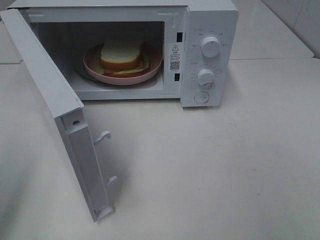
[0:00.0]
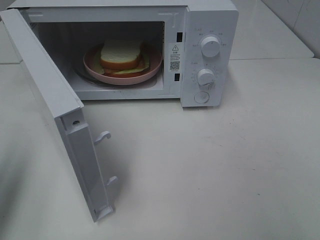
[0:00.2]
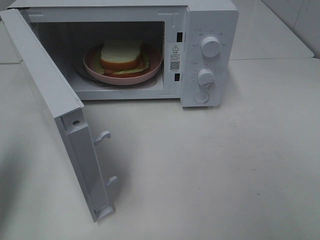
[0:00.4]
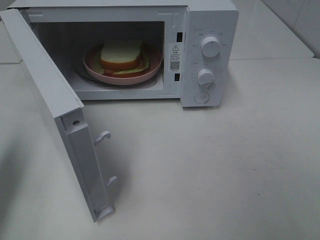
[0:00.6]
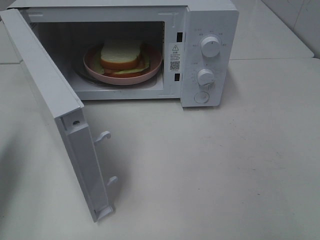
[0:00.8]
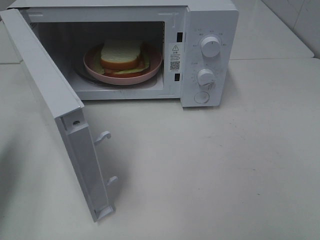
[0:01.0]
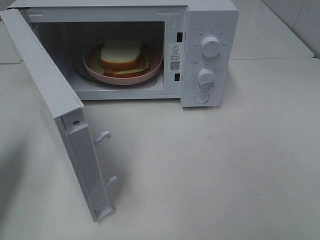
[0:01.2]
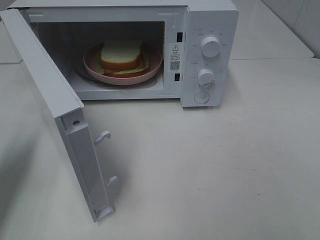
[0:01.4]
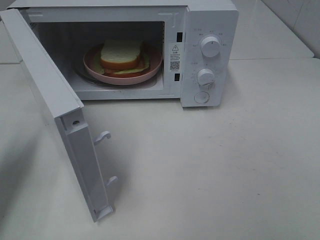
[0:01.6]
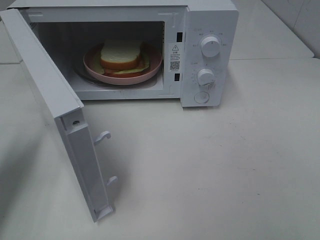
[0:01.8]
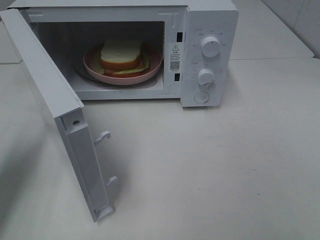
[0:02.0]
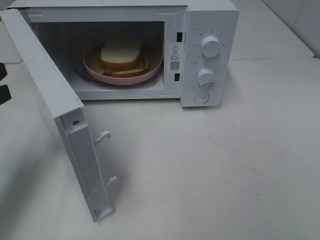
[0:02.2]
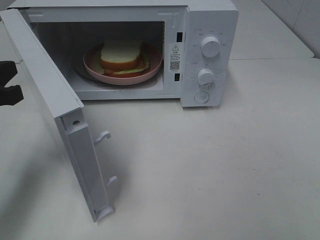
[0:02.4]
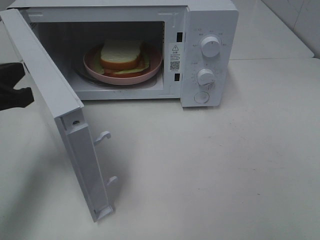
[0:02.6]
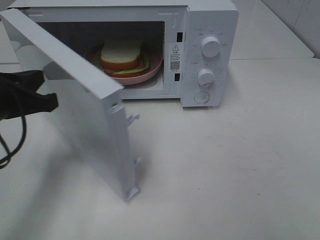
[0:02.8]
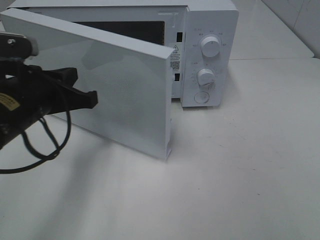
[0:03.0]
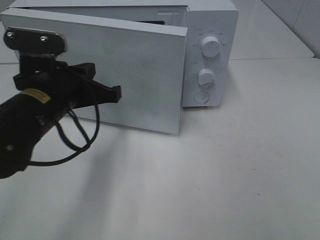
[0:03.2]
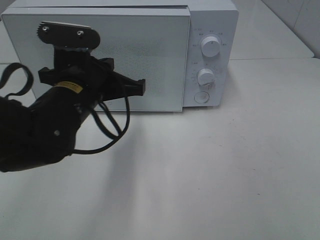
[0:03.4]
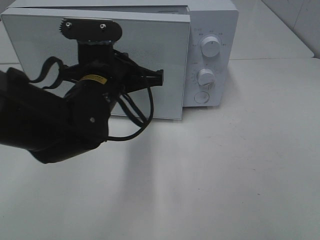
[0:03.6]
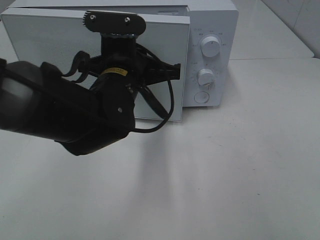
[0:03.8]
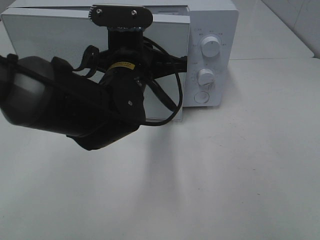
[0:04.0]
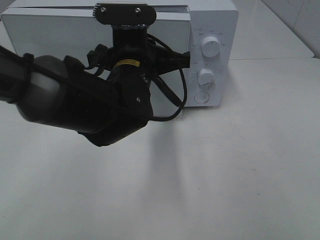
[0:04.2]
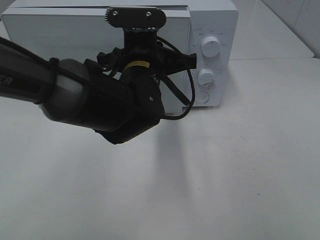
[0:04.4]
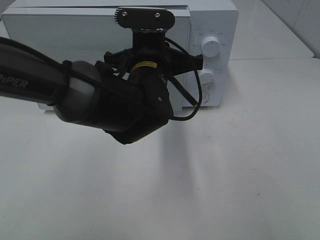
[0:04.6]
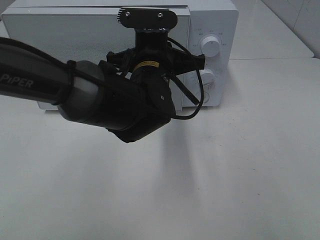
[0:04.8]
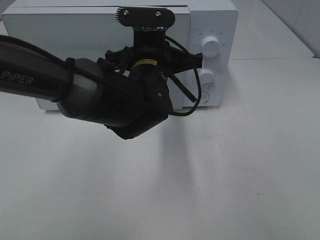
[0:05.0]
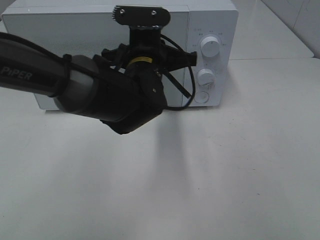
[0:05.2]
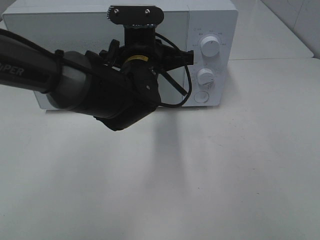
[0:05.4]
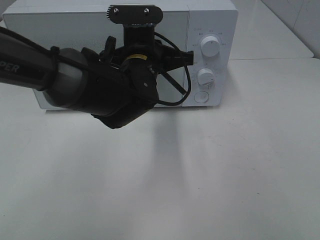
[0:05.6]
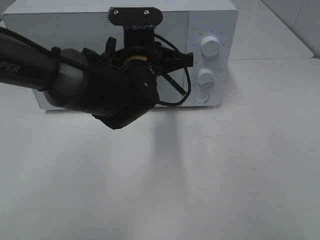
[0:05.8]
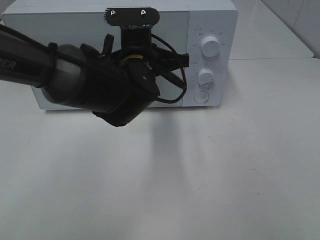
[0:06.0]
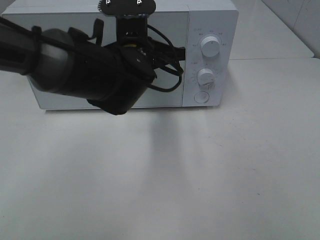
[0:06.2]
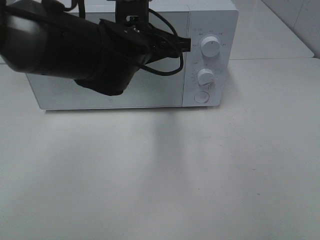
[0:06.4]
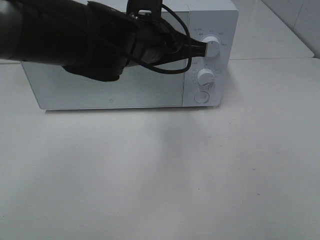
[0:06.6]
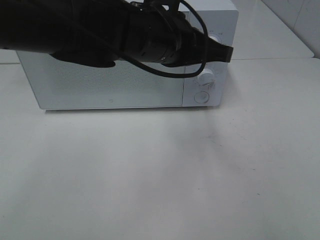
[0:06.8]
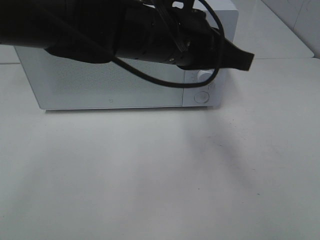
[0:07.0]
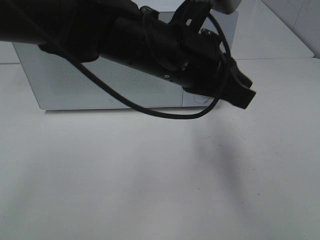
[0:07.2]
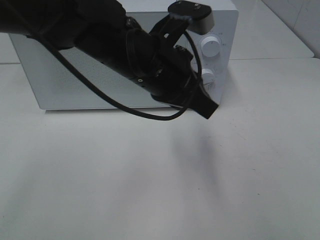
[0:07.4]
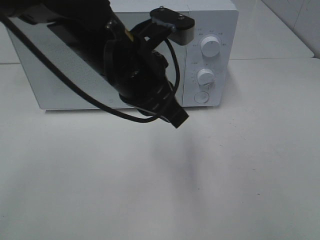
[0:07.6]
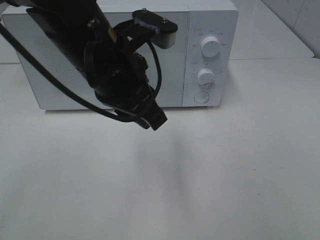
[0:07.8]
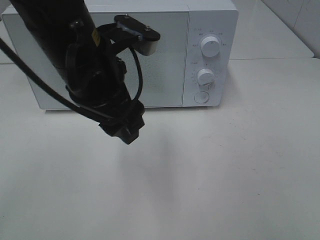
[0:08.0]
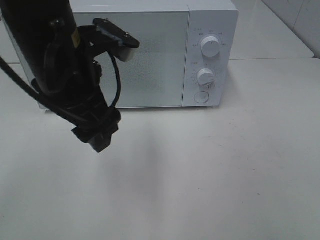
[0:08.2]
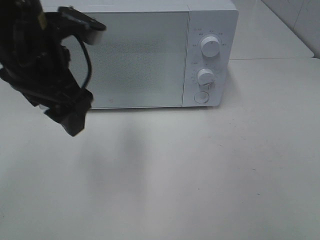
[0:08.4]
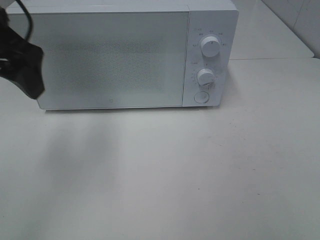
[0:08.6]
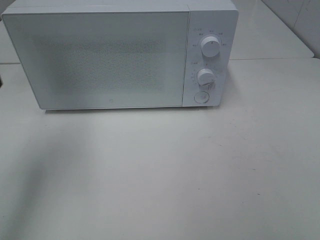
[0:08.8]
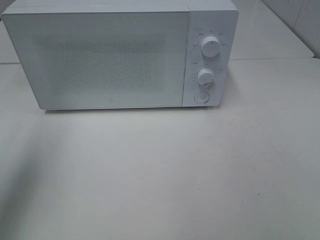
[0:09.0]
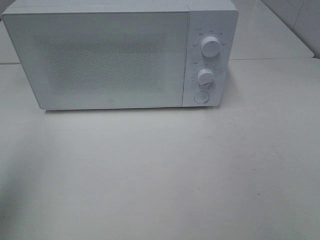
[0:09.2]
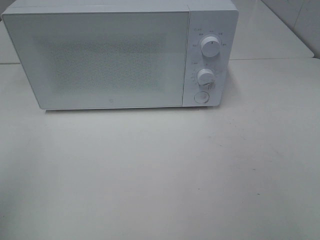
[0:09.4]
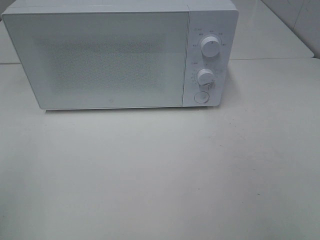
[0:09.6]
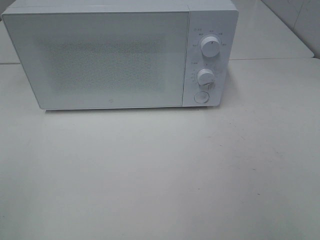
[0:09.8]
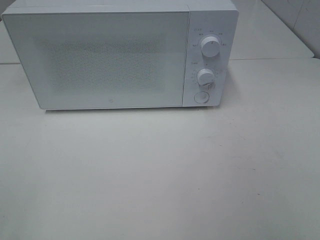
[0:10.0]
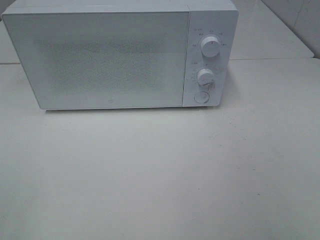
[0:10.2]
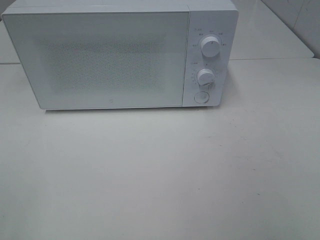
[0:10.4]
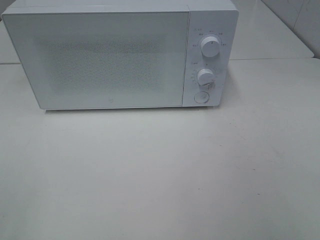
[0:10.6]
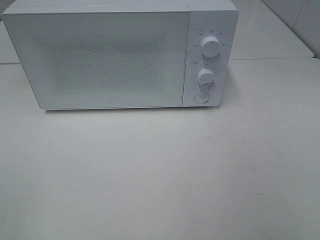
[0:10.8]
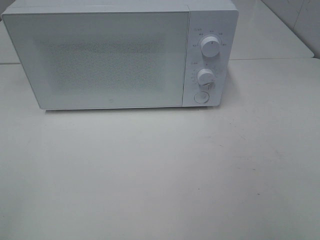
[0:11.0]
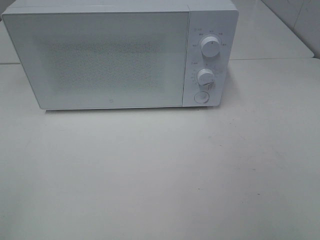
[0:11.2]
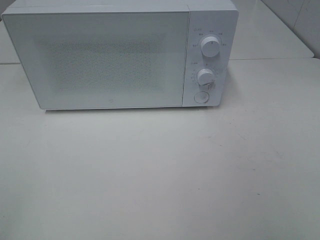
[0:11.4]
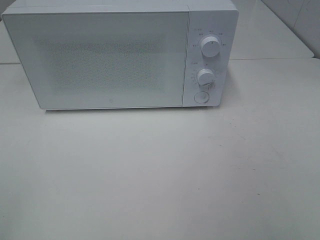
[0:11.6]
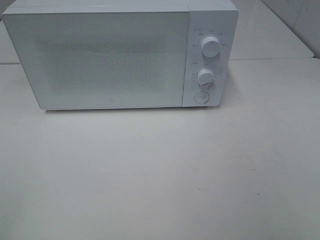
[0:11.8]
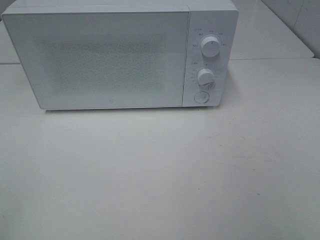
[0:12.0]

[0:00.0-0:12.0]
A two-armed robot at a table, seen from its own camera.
Task of the whole recording: Heat Sandwich.
Step, 0:00.0 to 0:06.6: Left hand: close the microwave door.
0:00.0 to 0:01.6: The left gripper is displaced forward and downward by roughly 15 cm, and closes.
0:01.6 to 0:03.0: The left gripper goes about 15 cm to the right.
0:03.0 to 0:04.4: The left gripper travels to the right by some 15 cm.
0:04.4 to 0:06.0: The grippers stay close to where they were, moving slightly.
0:06.0 to 0:07.6: The left gripper shifts about 10 cm backward and upward.
0:07.6 to 0:09.0: The left gripper heads to the left, covering about 25 cm, and opens up.
0:09.0 to 0:10.4: The left gripper shifts approximately 20 cm backward.

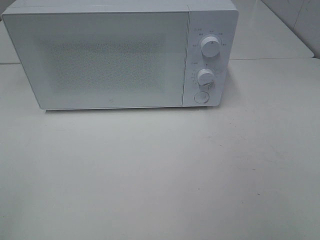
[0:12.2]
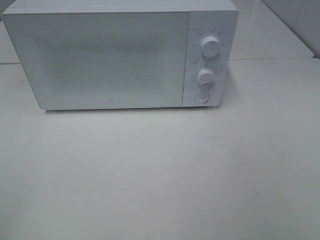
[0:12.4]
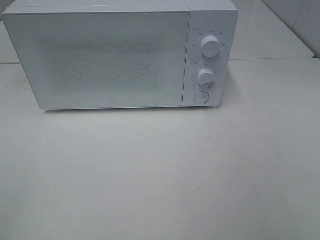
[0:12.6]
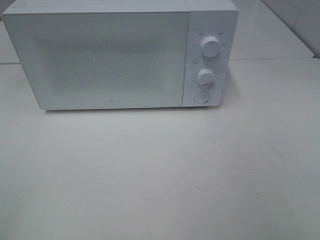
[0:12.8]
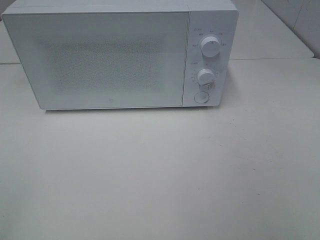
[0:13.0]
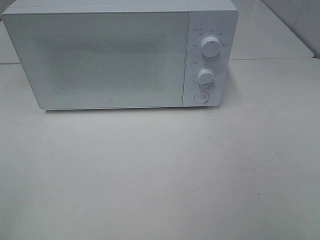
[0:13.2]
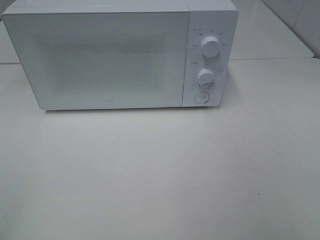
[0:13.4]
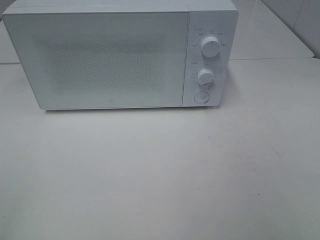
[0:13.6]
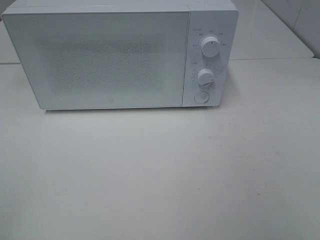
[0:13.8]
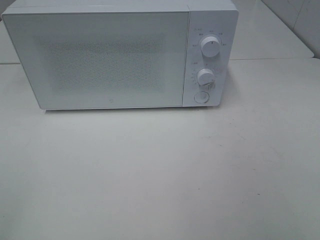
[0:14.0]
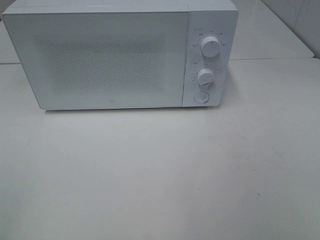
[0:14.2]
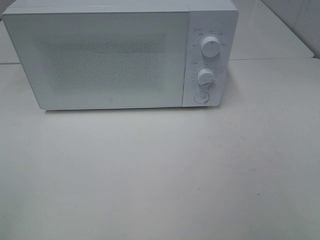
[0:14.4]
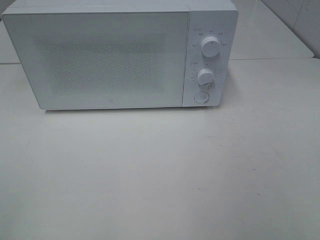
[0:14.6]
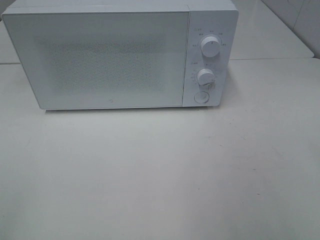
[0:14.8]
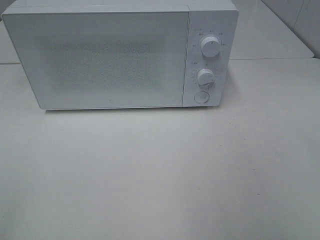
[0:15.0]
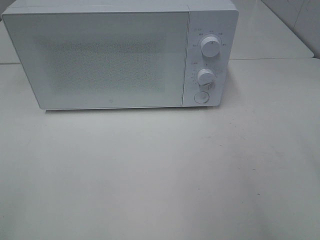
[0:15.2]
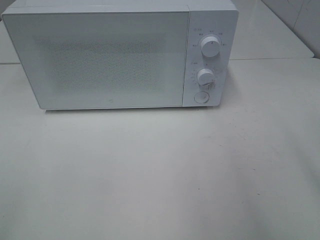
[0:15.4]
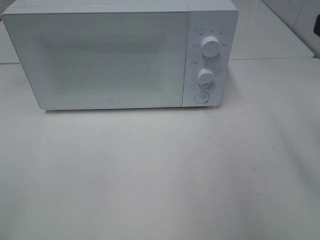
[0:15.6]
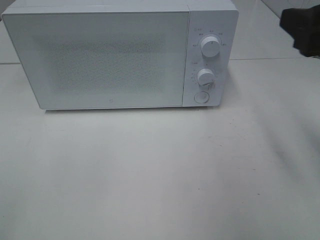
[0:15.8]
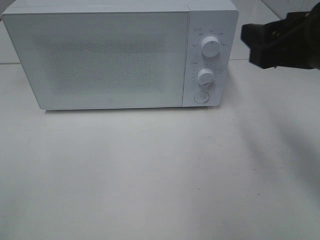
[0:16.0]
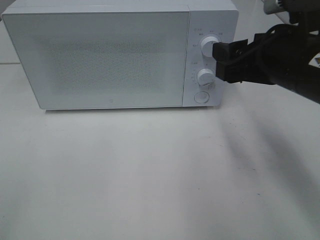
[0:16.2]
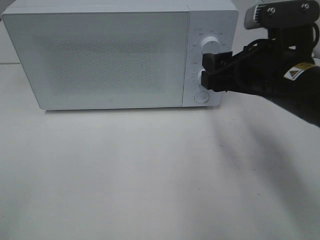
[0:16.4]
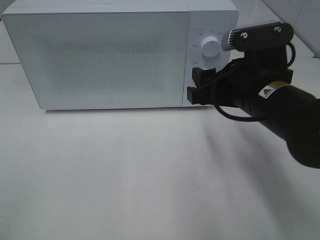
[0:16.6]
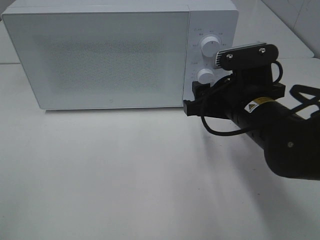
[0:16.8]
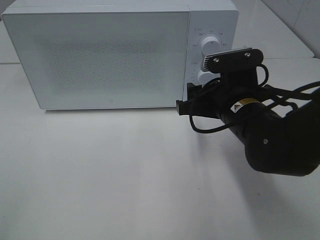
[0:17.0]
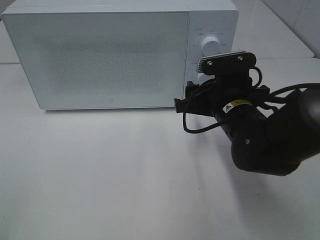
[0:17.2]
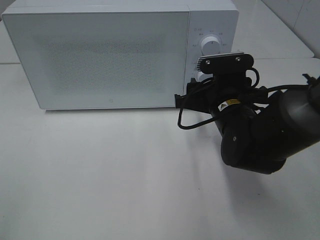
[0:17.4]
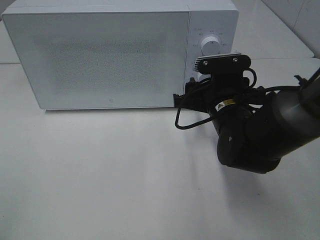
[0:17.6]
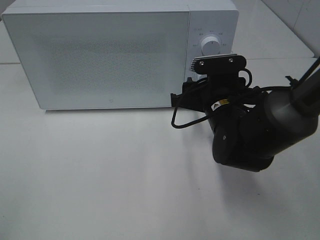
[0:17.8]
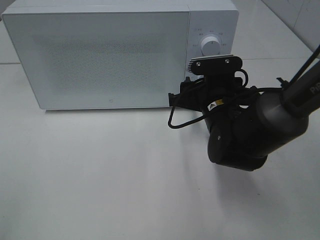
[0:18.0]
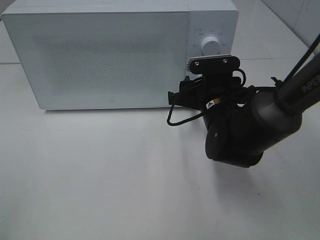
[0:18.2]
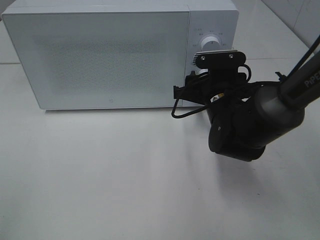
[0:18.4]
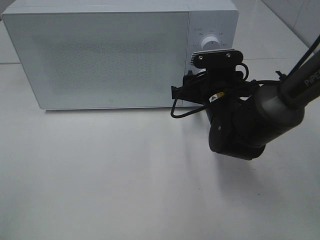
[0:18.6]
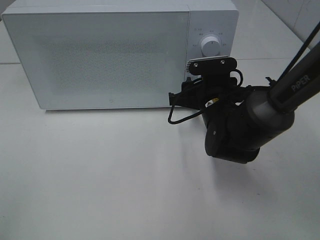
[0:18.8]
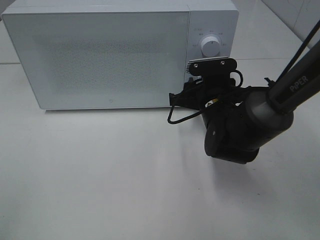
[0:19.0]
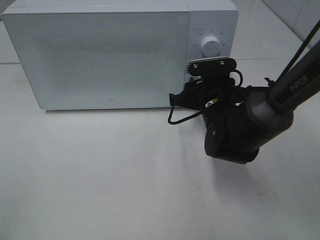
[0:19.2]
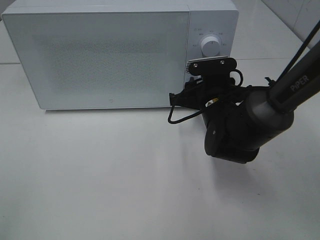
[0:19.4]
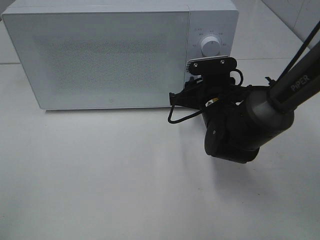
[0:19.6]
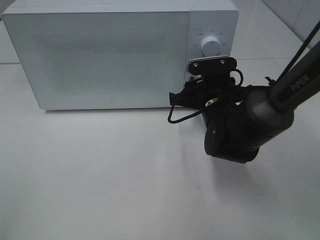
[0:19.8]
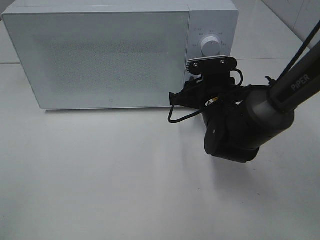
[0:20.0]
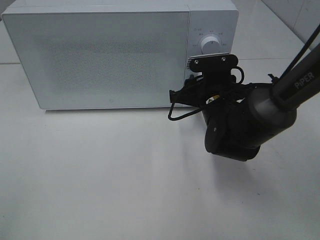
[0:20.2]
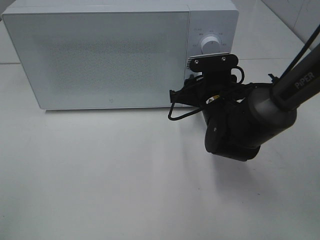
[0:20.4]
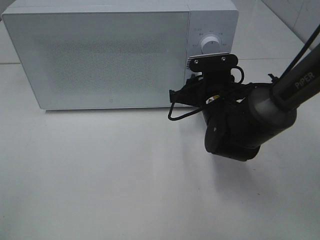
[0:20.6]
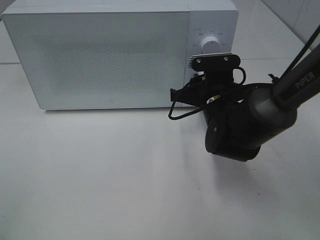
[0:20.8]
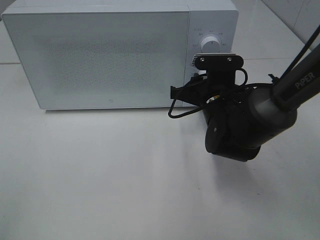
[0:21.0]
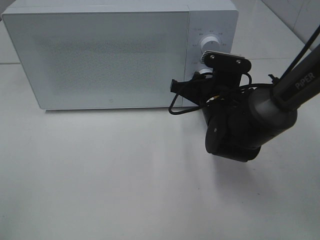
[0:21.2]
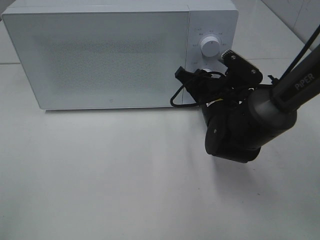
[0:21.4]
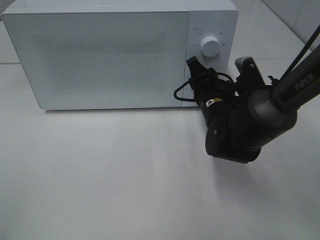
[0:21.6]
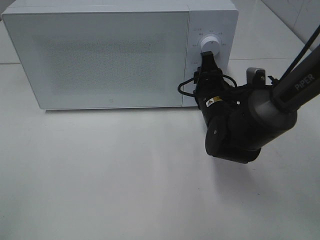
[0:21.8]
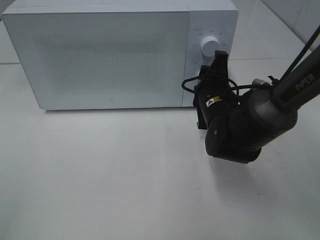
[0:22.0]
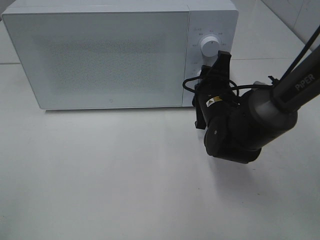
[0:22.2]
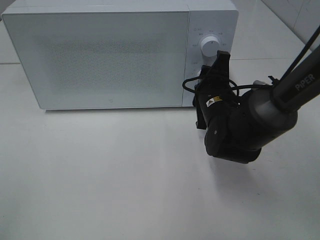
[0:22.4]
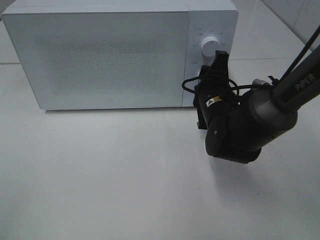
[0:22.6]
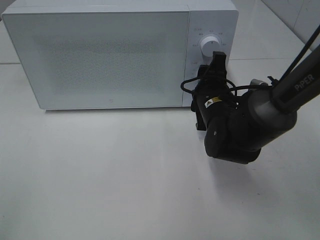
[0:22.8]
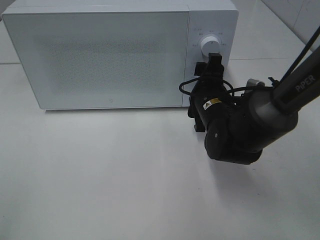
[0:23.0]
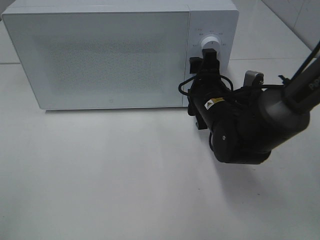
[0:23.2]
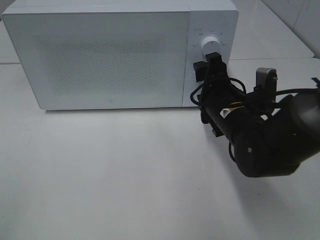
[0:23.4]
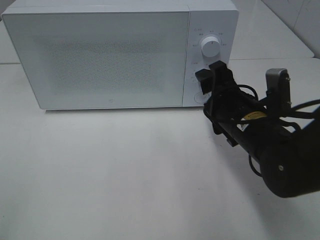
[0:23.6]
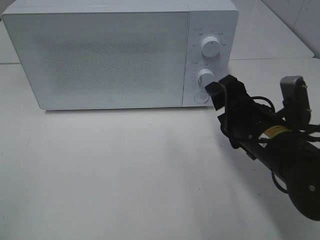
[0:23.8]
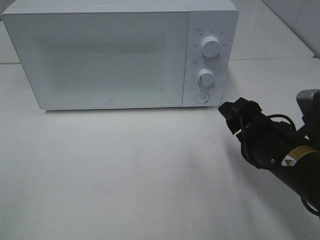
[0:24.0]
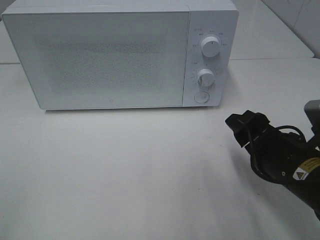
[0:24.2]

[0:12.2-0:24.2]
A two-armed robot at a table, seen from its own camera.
Task of the whole recording: Heat Sandwich.
Step, 0:12.2 to 0:23.2: Right hand: twist timer button.
0:12.2 to 0:13.8: Neither gripper changes place.
0:15.2 to 0:16.6: The right gripper is displaced forward, to the left and downward by approximately 25 cm.
0:16.6 to 0:18.2: The right gripper shifts some 10 cm downward and forward.
0:18.2 to 0:19.8: The grippers make only small movements.
0:22.6 to 0:24.2: The right gripper moves backward and to the right, roughly 15 cm, and opens up.
